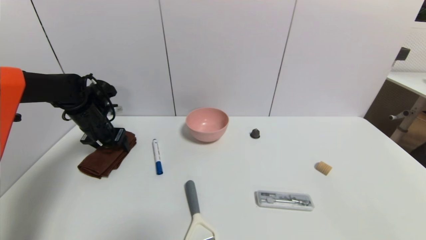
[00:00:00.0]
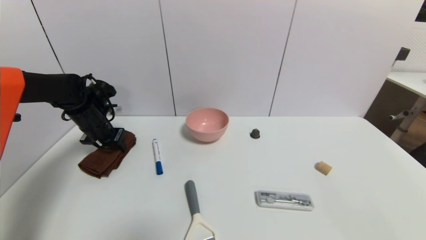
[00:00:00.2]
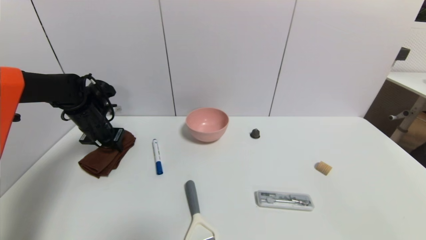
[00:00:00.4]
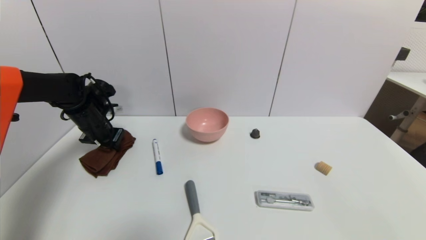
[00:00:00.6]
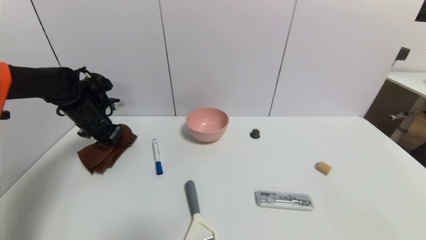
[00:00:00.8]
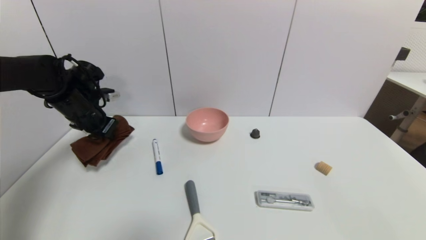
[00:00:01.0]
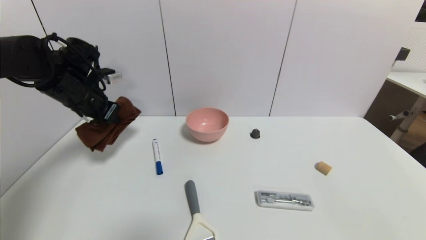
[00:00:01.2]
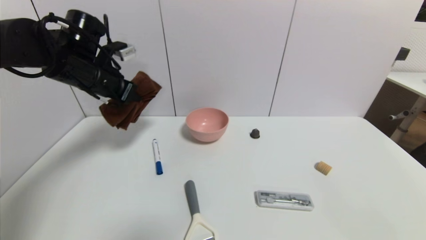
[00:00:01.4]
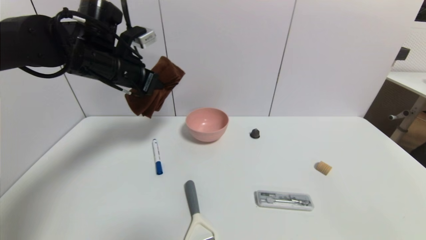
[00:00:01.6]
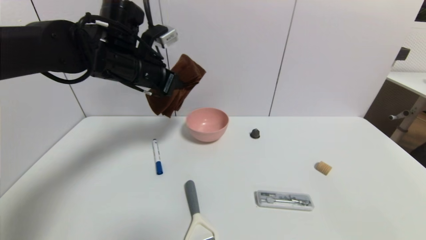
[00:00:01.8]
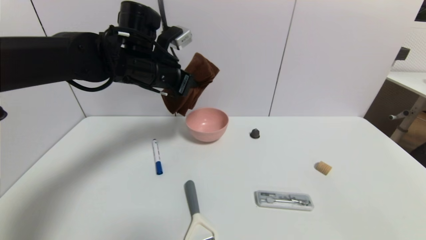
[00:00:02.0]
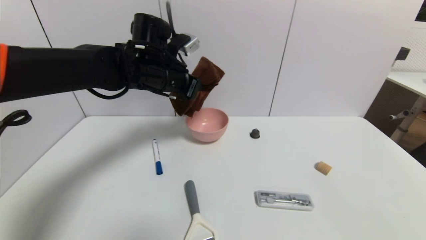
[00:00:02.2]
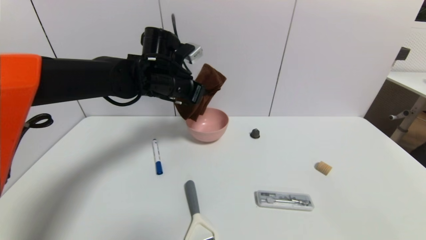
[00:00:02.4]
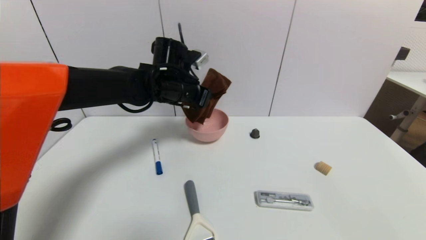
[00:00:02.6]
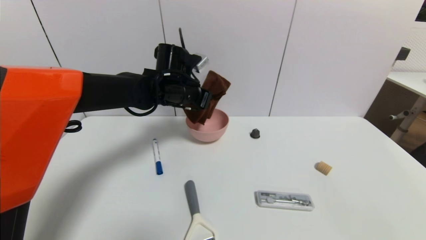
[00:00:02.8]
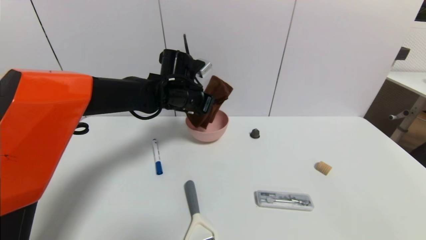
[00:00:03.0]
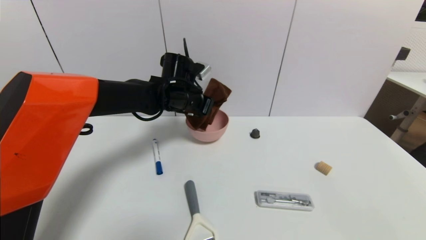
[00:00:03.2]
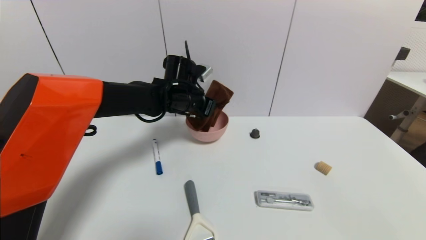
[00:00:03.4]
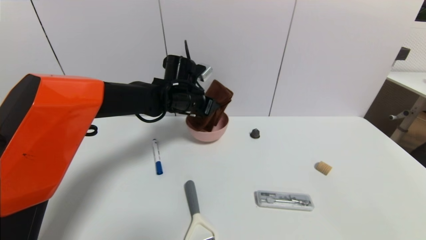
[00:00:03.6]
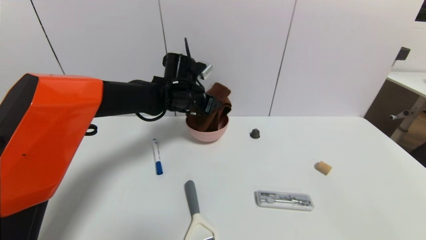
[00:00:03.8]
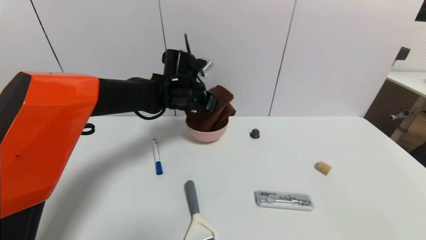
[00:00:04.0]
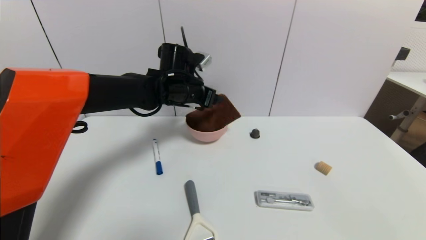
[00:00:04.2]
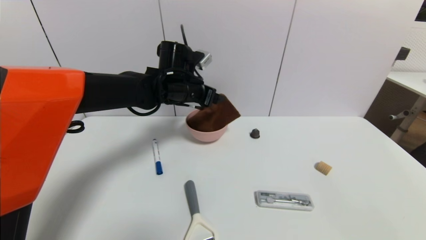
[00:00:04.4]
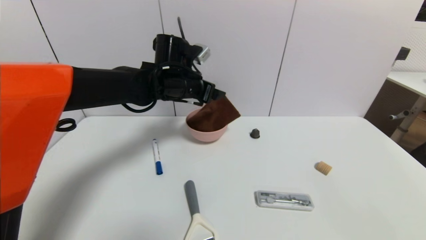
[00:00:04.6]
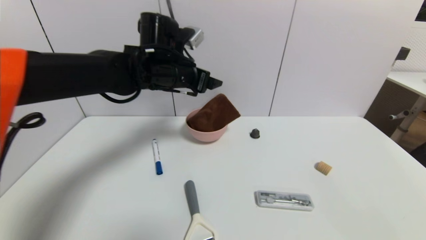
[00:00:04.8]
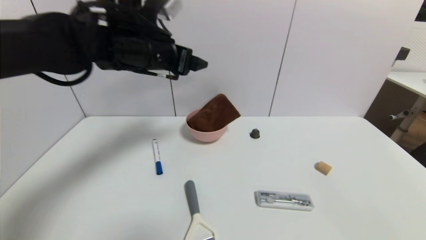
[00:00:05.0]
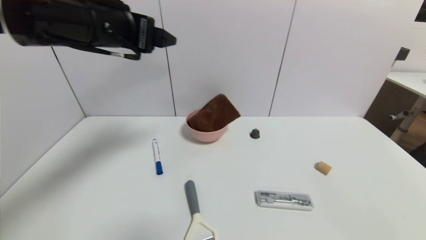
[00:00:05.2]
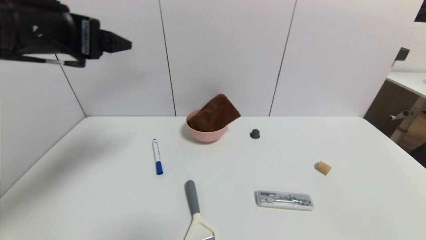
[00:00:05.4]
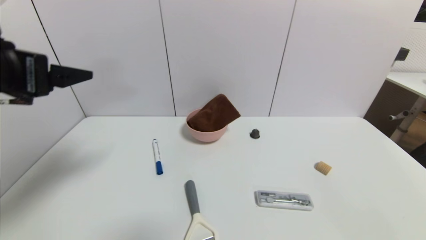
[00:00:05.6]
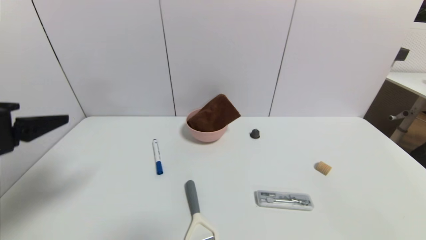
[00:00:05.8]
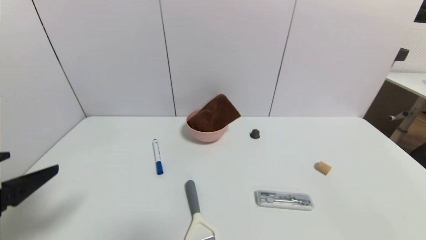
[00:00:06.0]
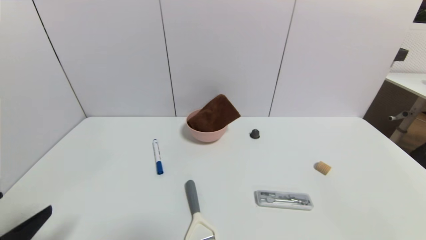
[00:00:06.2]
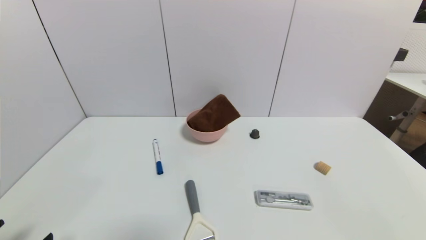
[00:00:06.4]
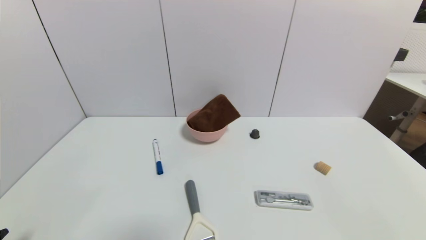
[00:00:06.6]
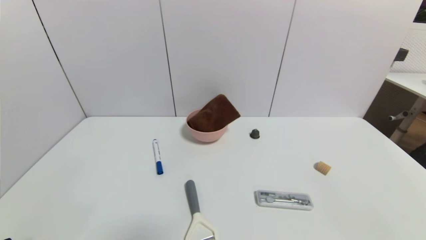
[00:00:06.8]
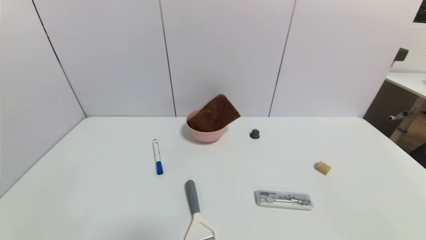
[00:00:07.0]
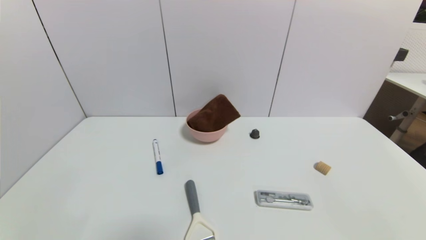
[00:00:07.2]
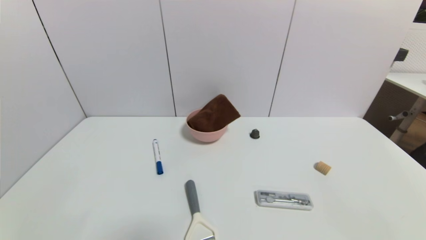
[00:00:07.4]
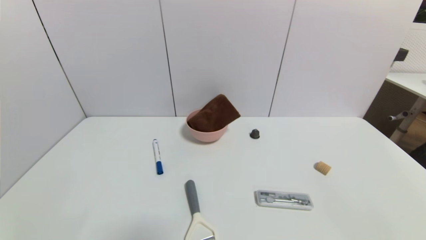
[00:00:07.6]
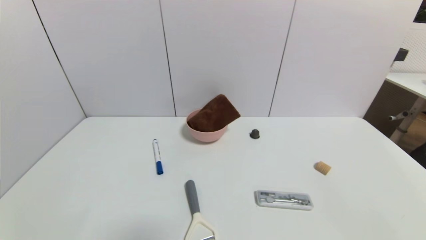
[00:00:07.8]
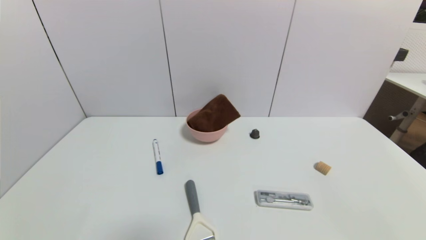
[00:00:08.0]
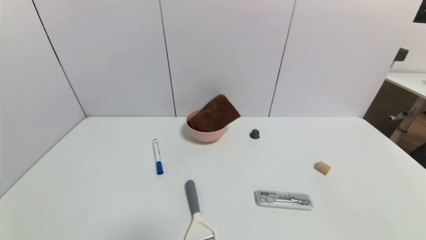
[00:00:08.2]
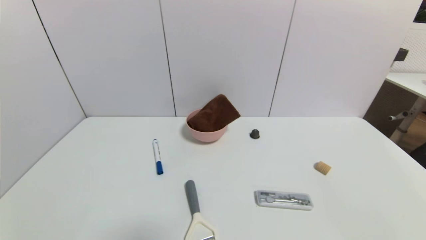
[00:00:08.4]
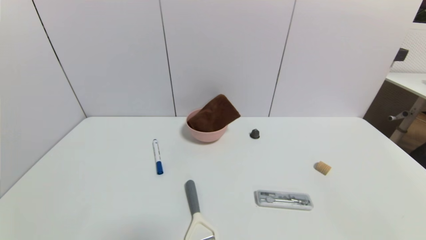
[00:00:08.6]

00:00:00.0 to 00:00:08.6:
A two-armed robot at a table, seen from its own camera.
Task of the whole recording: use a gripper to pick the target object and place on the pink bowl.
Step, 00:00:00.8 to 00:00:04.0: Place the brown towel on the pink bowl with the left gripper.
00:00:00.0 to 00:00:01.4: The left gripper is displaced upward and to the right by some 15 cm, and closes up.
00:00:01.4 to 00:00:02.8: The left gripper shifts some 15 cm to the right and downward.
00:00:02.8 to 00:00:04.4: The left gripper opens up.
00:00:04.4 to 00:00:05.8: The left gripper is displaced backward and to the left by about 35 cm.
00:00:05.8 to 00:00:07.2: The left gripper shifts roughly 25 cm downward and backward.
